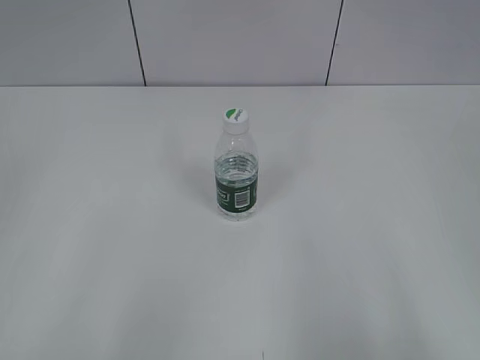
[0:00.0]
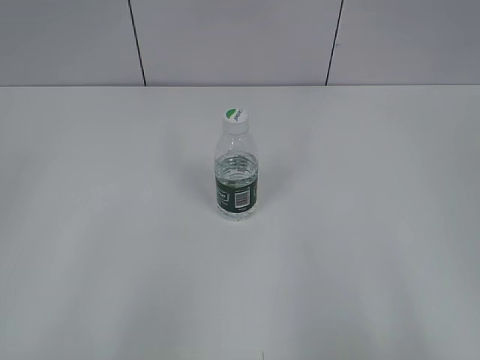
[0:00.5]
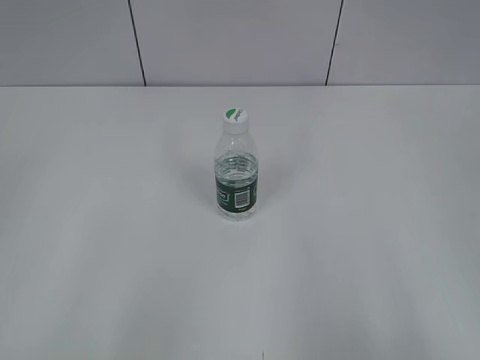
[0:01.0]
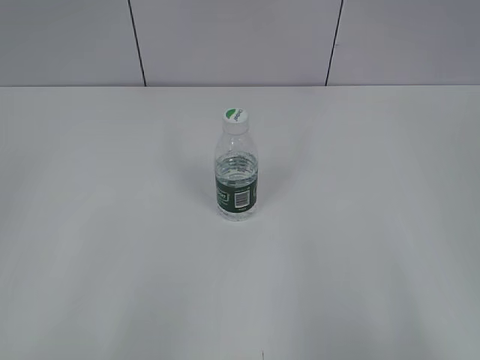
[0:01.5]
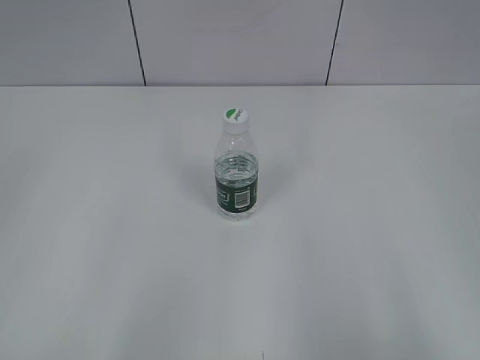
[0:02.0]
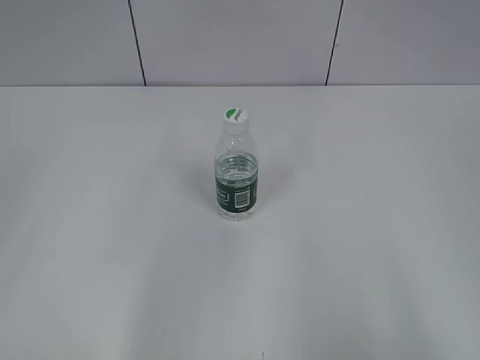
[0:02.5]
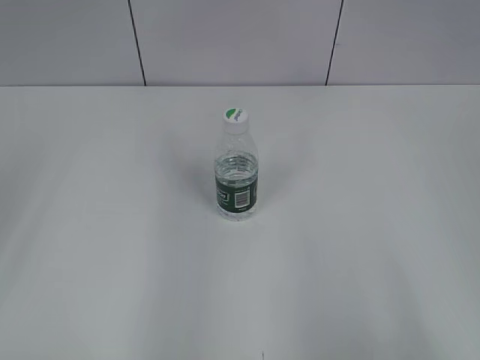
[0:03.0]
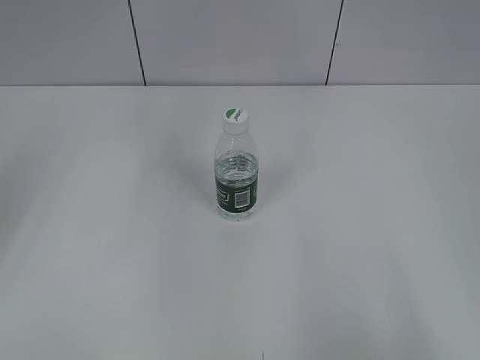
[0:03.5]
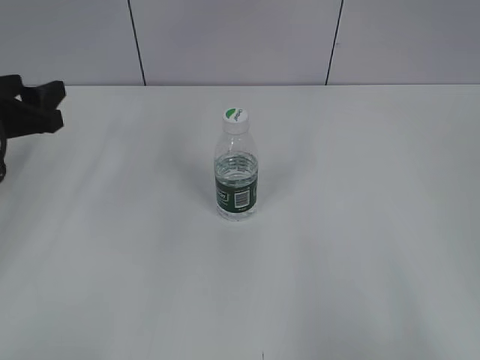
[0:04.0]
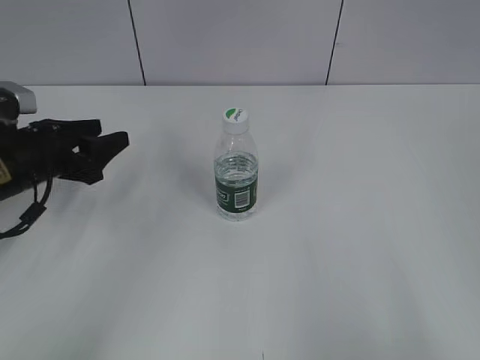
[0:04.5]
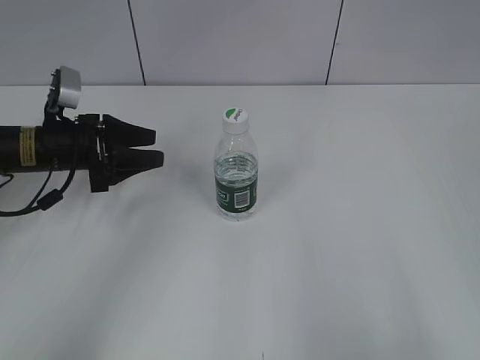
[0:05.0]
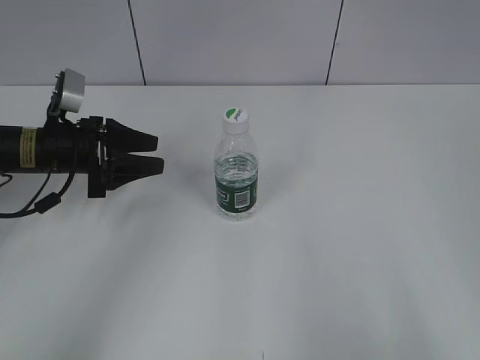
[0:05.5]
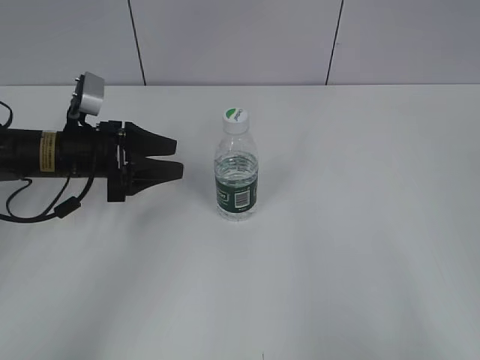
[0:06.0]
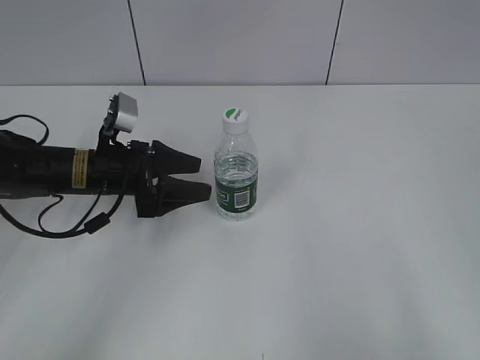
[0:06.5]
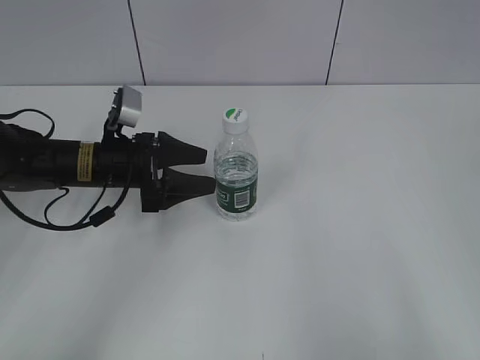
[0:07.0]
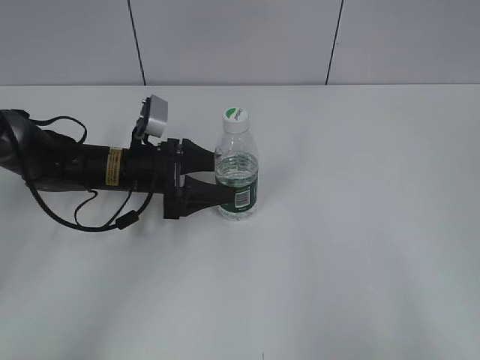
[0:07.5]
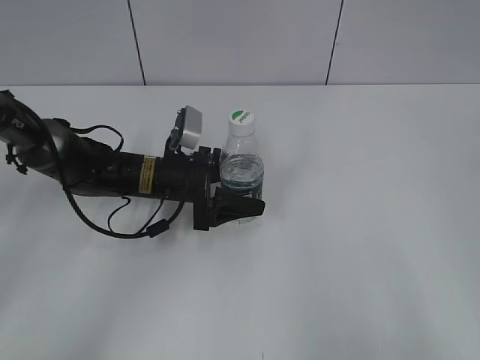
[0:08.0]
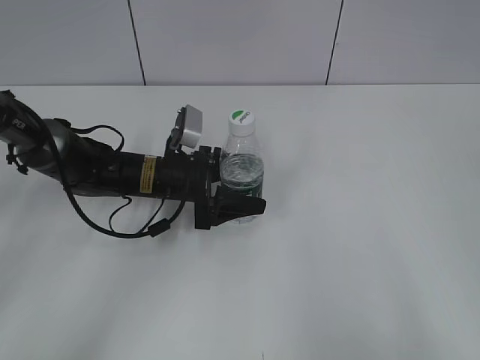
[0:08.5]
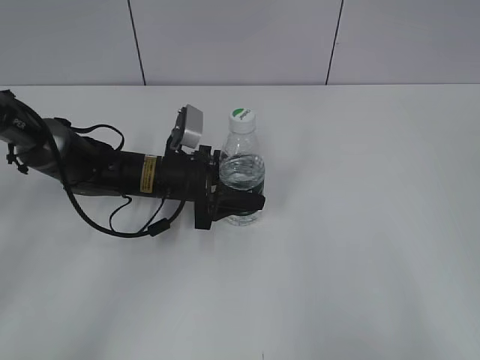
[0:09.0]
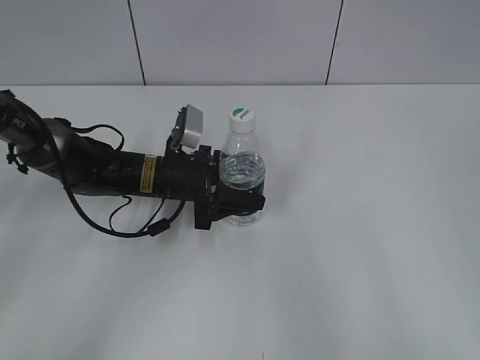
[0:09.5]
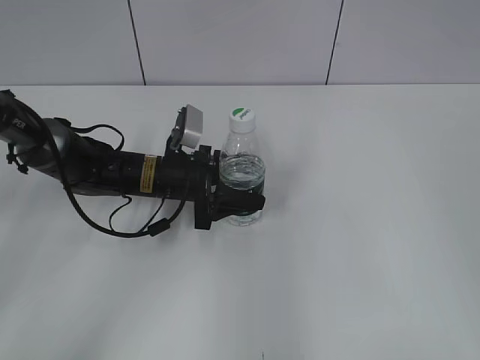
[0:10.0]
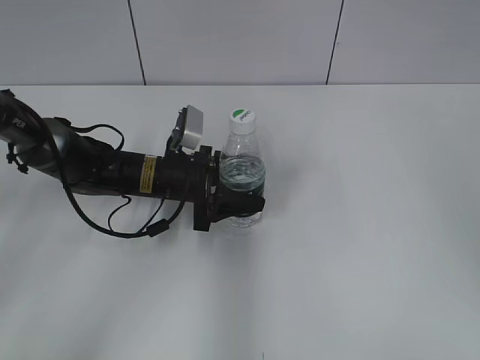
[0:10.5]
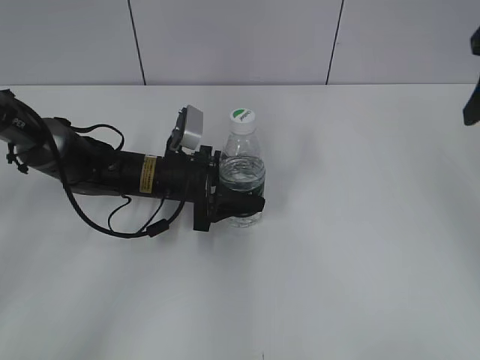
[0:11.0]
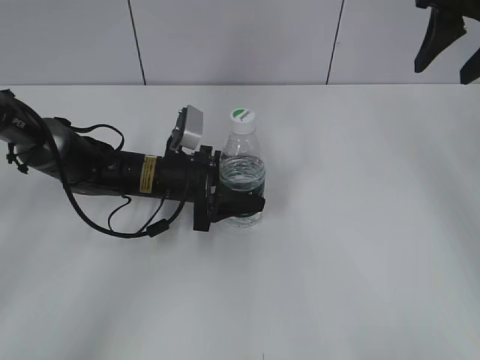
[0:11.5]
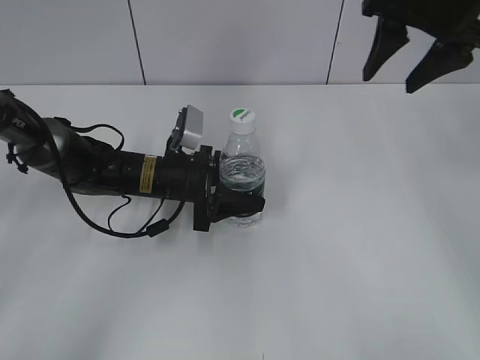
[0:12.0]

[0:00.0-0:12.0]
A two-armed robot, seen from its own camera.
0:02.0 to 0:04.0: The left gripper shifts some 30 cm forward, and closes up.
0:04.0 to 0:06.0: The left gripper heads downward, to the right and forward, covering about 10 cm.
0:06.0 to 0:08.0: The left gripper shifts about 10 cm to the right and downward, and opens.
0:08.0 to 0:10.0: The right gripper shifts approximately 10 cm forward, while the left gripper closes.
0:10.0 to 0:12.0: The right gripper goes roughly 25 cm forward.

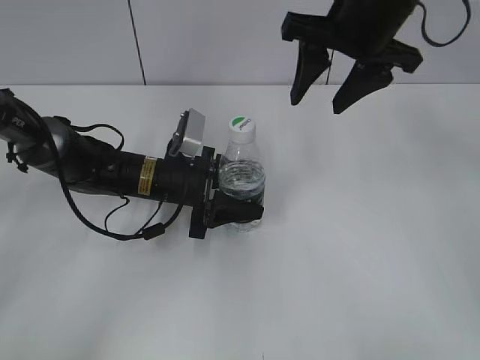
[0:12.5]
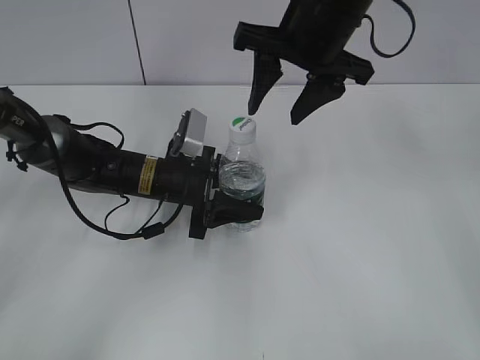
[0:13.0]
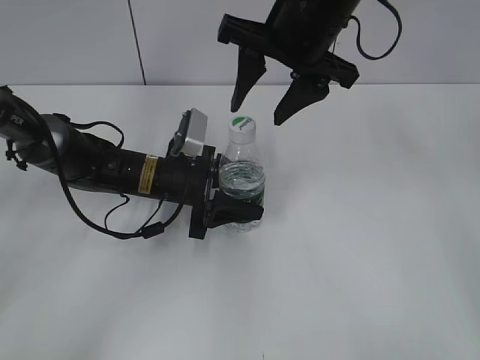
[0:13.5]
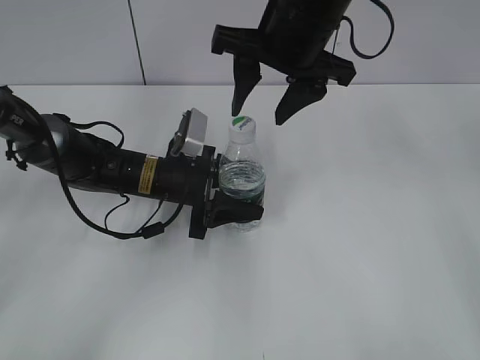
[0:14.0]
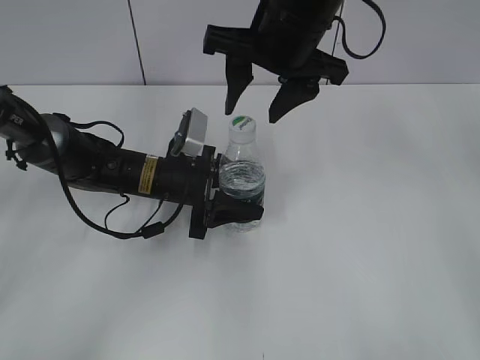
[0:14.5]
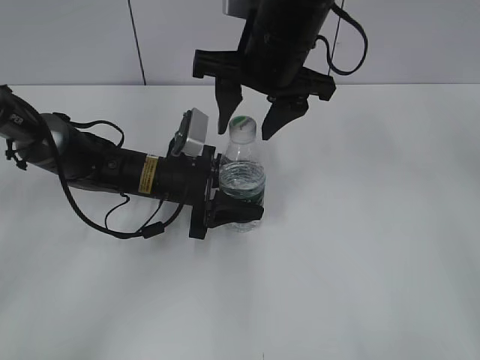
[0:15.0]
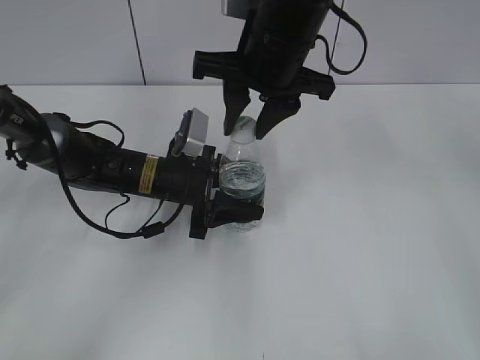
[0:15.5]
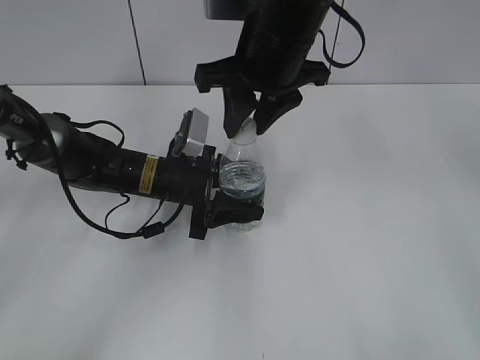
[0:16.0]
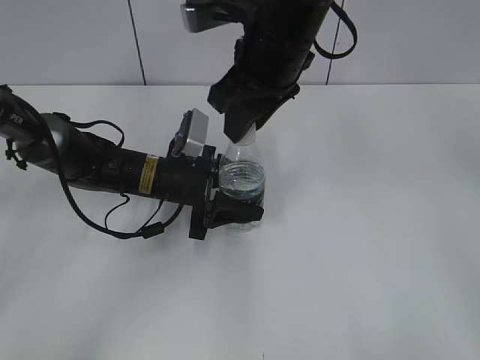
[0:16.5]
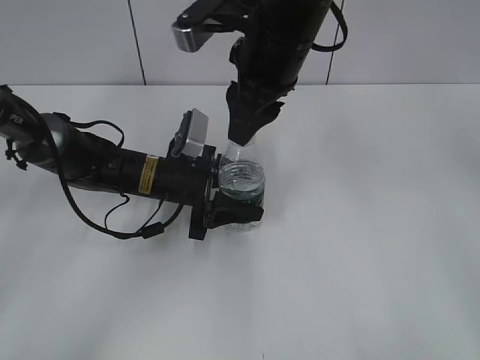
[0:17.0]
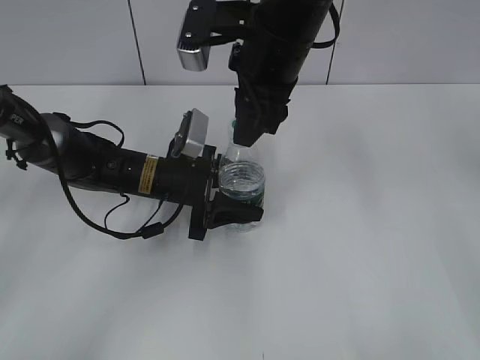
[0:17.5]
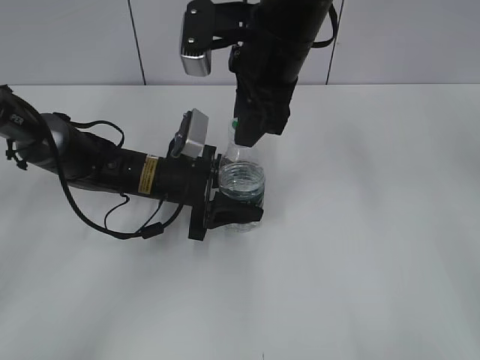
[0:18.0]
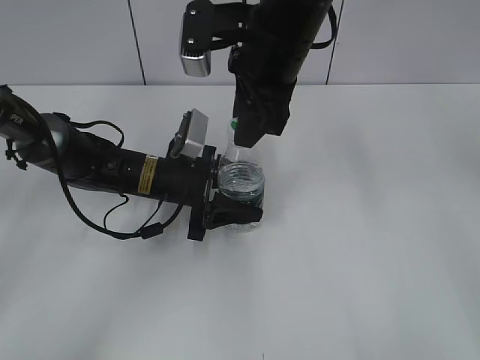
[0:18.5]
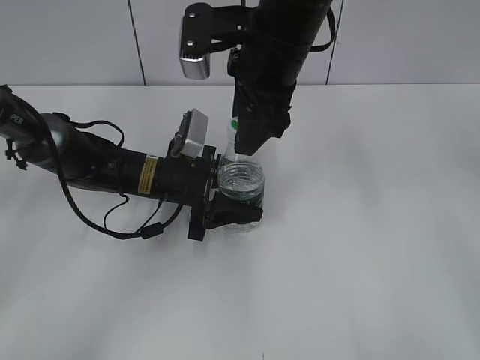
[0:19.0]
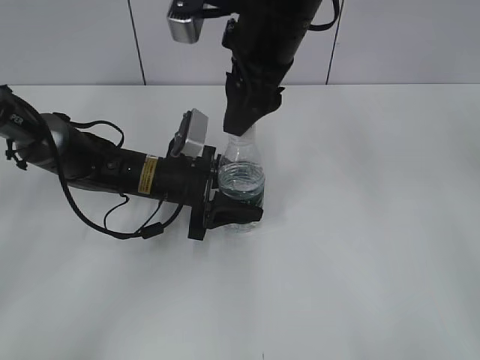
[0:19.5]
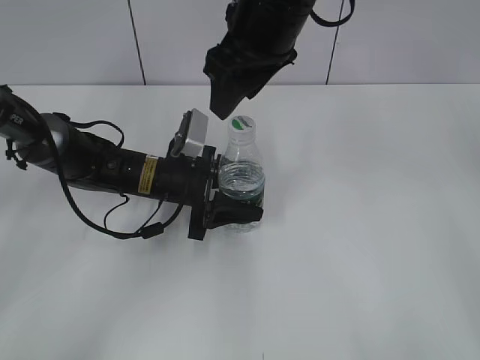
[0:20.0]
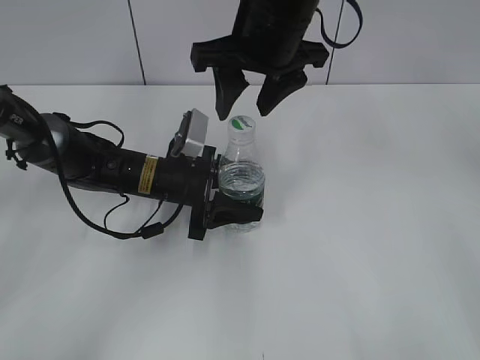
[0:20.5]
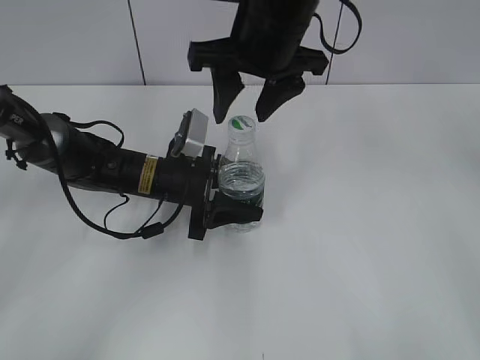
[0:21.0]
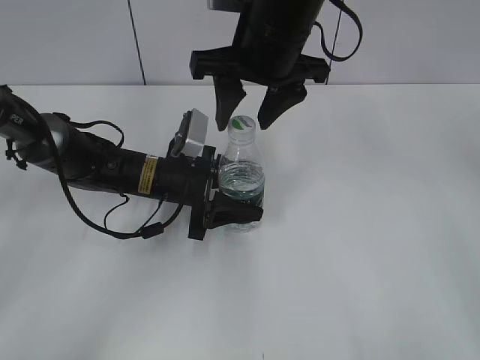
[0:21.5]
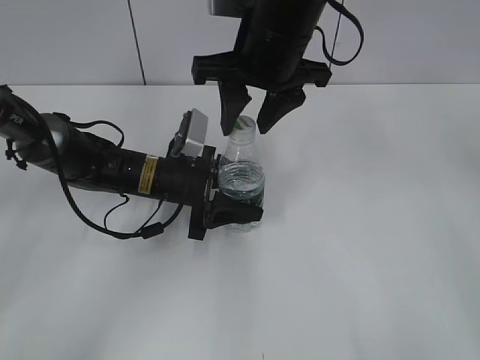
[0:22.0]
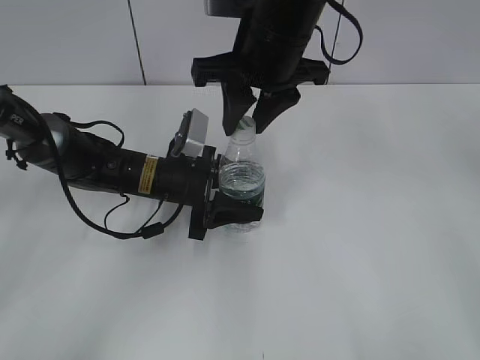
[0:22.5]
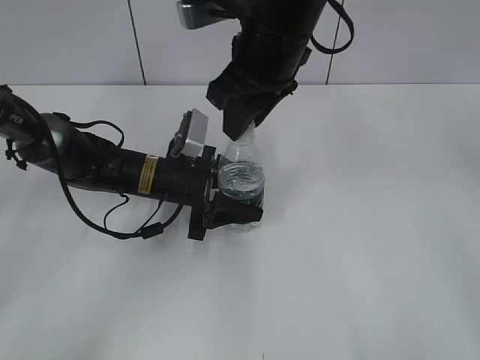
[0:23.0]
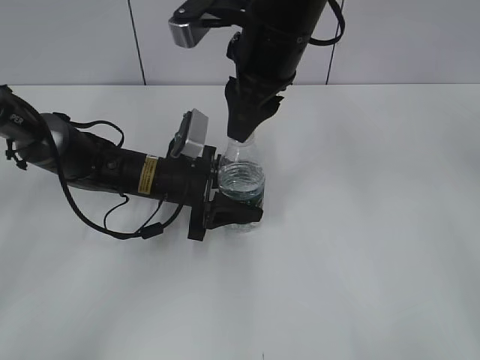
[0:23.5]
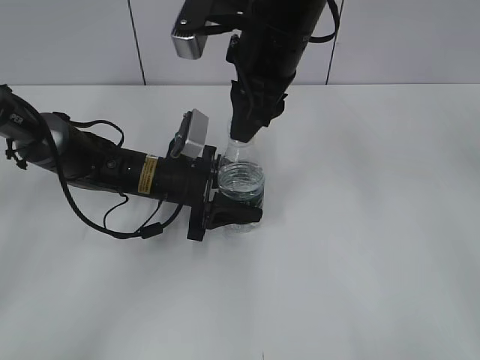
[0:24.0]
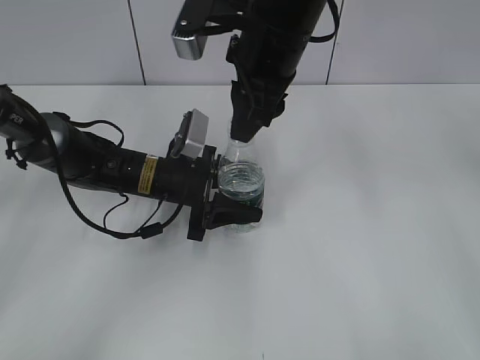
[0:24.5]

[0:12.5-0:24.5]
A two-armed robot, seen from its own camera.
0:12.5 to 0:14.5: The right gripper heads to the left, covering some 10 cm.
0:14.5 to 0:16.5: The right gripper closes its fingers.
0:18.5 to 0:20.5: The right gripper opens up.
0:20.5 to 0:22.5: The right gripper closes its fingers.

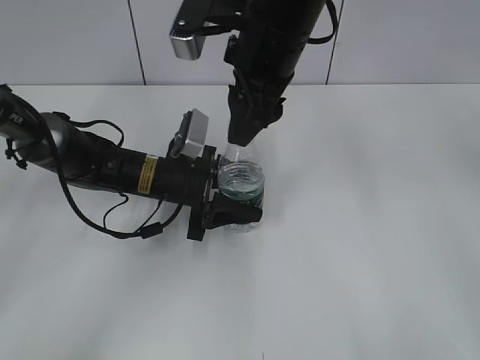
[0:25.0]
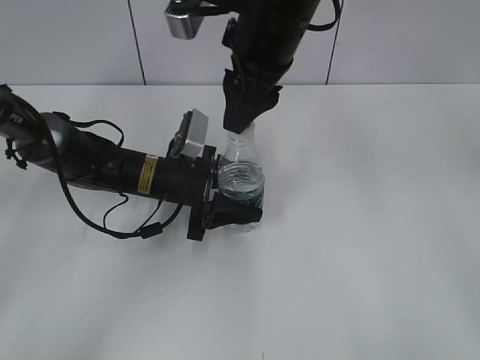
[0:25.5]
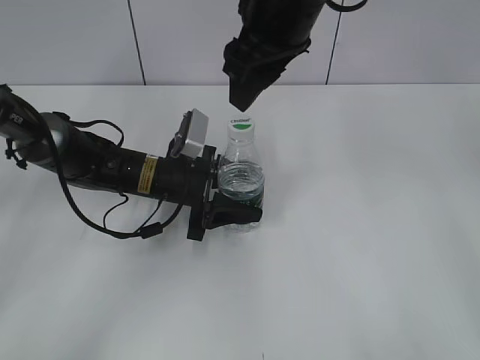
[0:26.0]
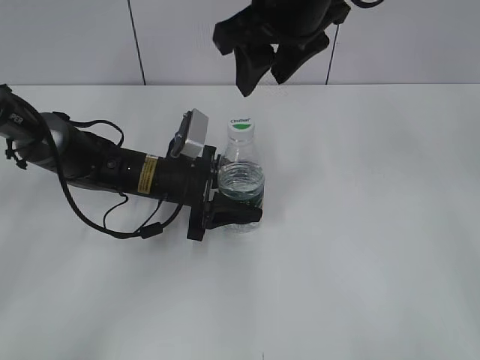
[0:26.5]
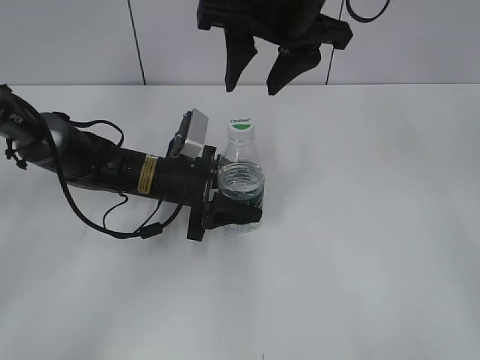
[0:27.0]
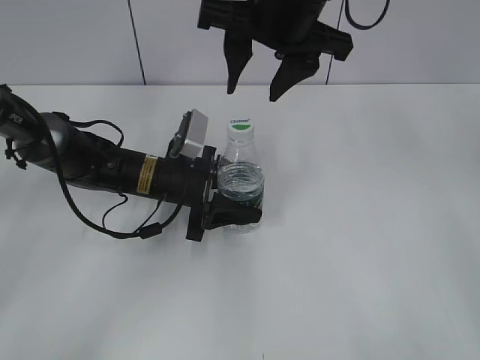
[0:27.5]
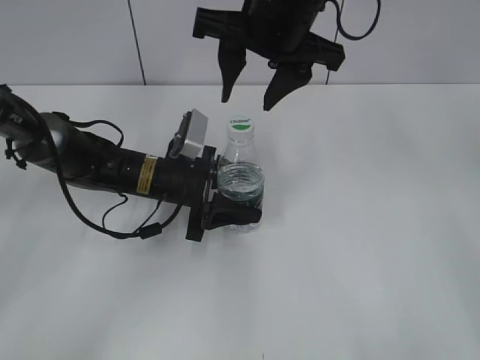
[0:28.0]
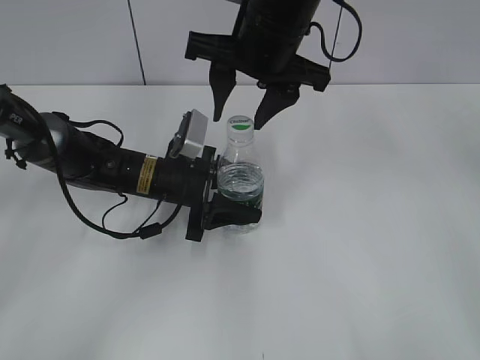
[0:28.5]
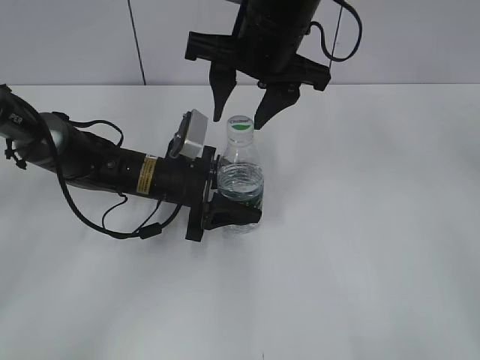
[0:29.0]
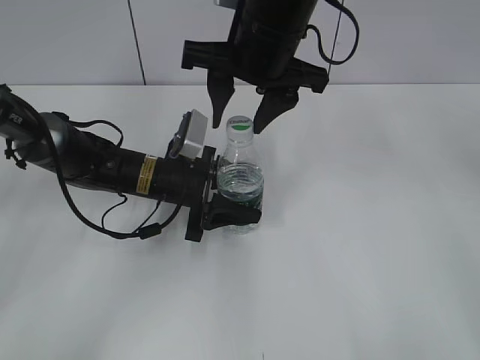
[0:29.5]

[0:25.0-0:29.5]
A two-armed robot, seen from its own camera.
0:27.0 to 0:29.5: The grippers stay close to where they were, moving slightly.
